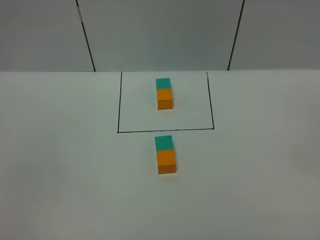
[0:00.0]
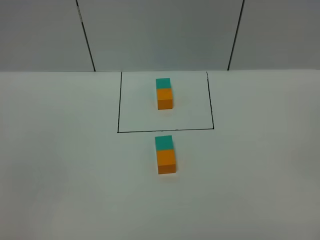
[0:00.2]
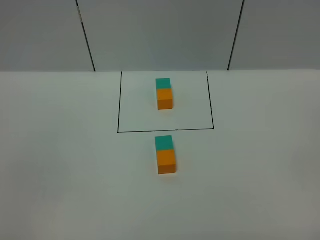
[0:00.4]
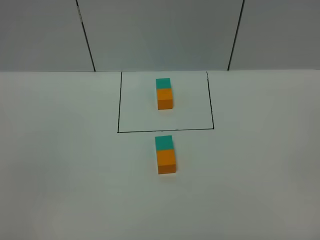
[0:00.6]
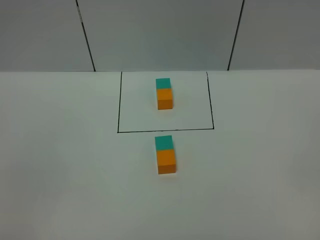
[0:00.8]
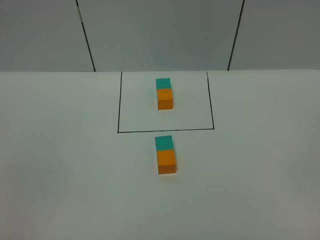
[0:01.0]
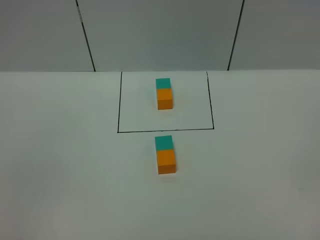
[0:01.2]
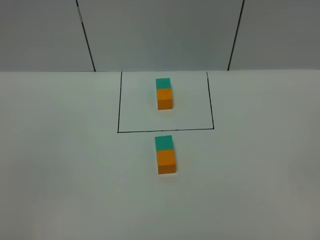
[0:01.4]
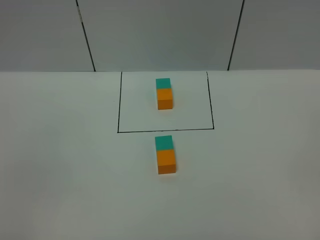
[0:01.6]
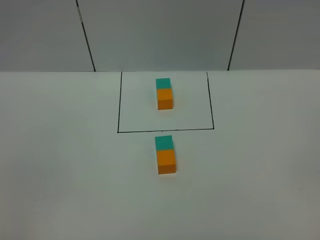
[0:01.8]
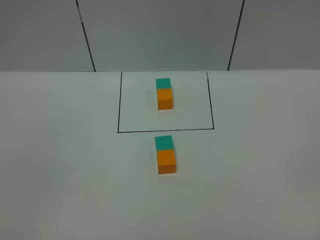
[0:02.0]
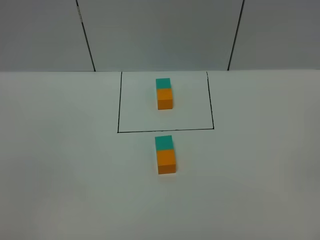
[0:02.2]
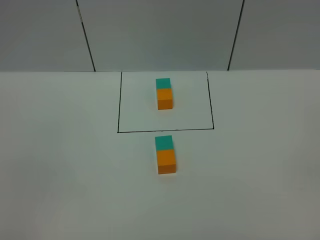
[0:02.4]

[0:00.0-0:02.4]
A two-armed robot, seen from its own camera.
Task of the whole recording: According to the building block template in front, assemble the scattered blocks together.
0:01.2 to 0:02.4: Both grippers stay about where they are.
